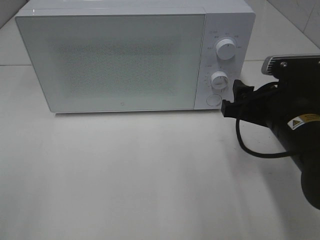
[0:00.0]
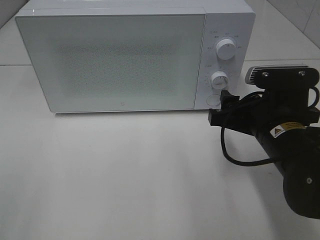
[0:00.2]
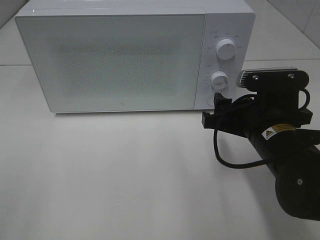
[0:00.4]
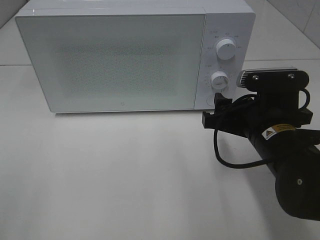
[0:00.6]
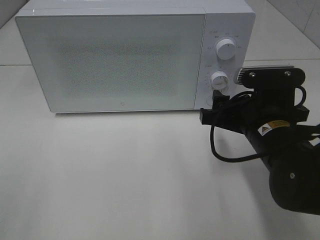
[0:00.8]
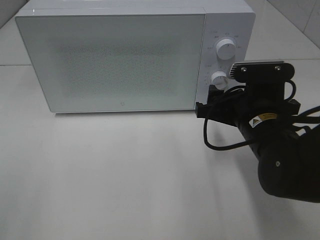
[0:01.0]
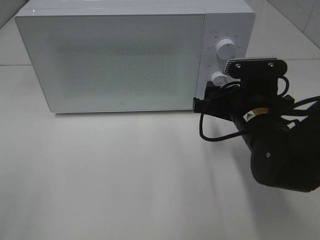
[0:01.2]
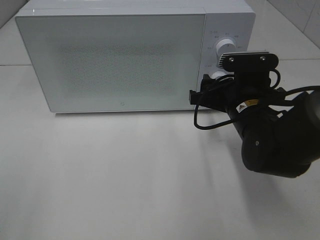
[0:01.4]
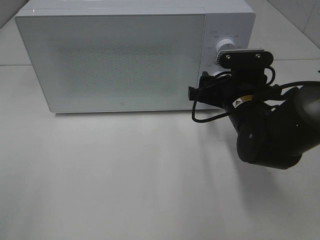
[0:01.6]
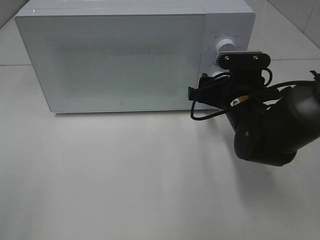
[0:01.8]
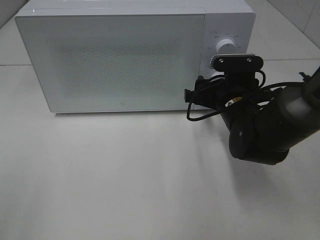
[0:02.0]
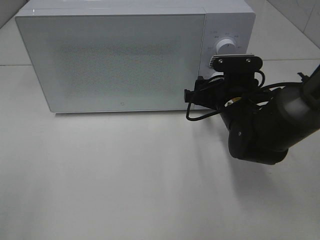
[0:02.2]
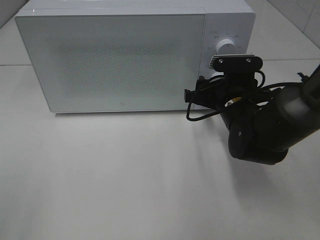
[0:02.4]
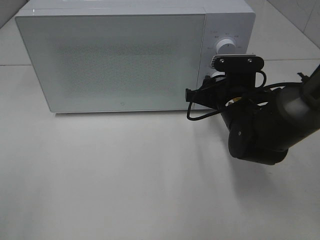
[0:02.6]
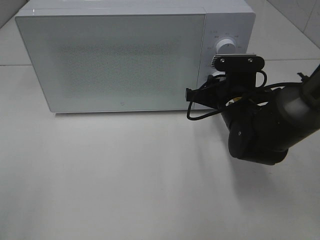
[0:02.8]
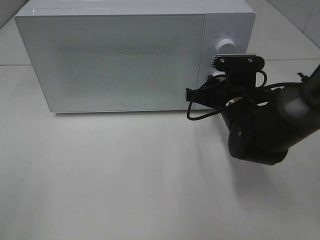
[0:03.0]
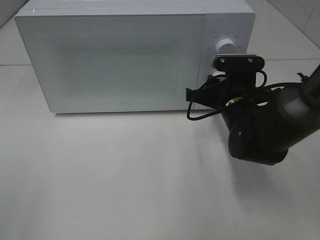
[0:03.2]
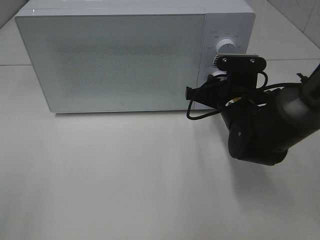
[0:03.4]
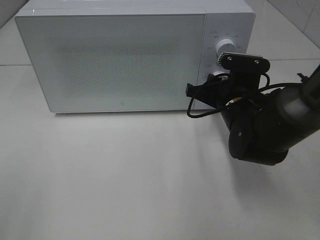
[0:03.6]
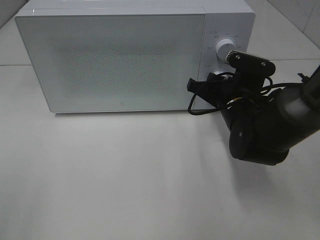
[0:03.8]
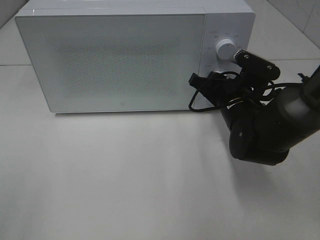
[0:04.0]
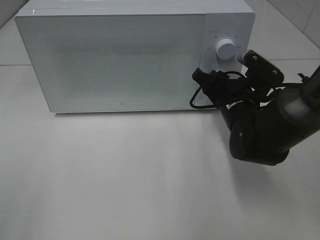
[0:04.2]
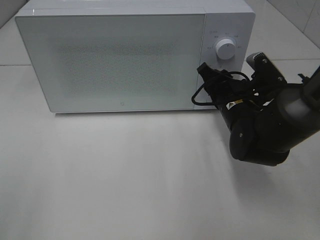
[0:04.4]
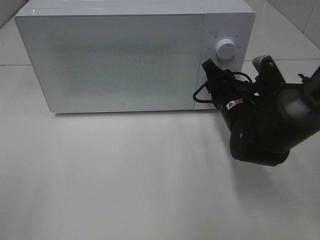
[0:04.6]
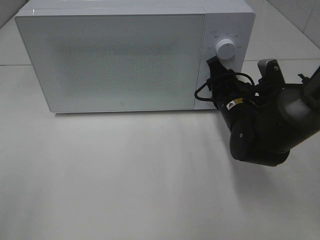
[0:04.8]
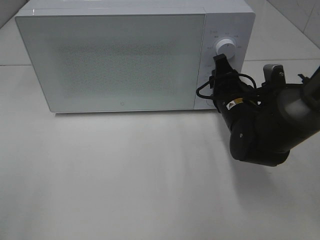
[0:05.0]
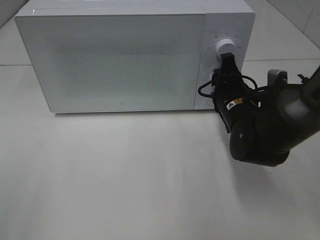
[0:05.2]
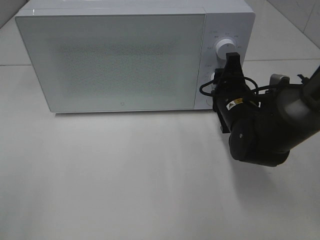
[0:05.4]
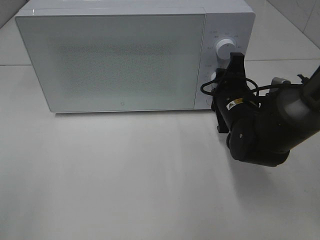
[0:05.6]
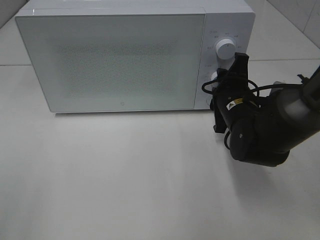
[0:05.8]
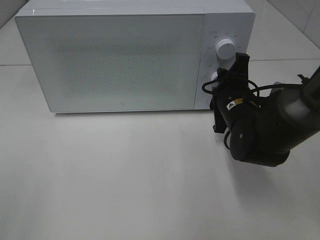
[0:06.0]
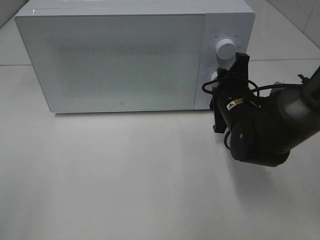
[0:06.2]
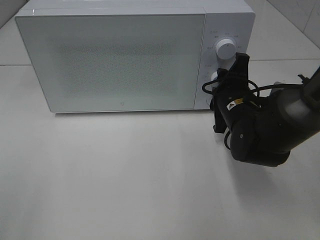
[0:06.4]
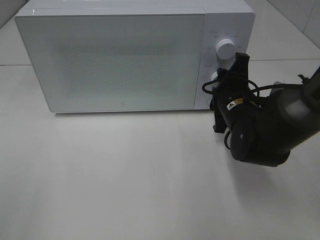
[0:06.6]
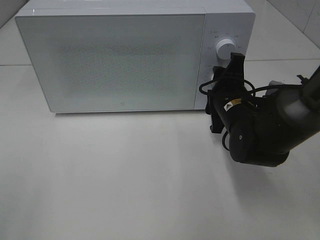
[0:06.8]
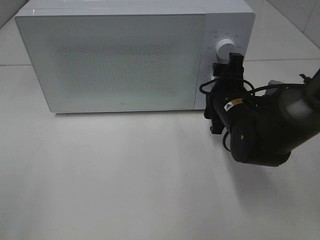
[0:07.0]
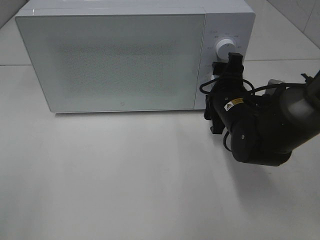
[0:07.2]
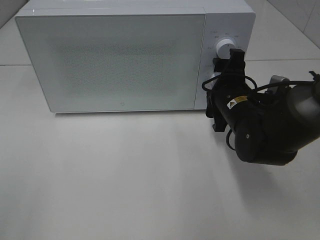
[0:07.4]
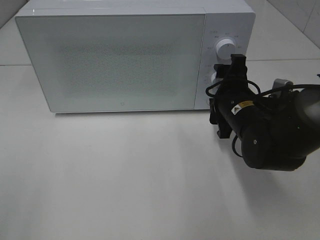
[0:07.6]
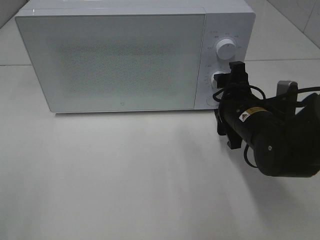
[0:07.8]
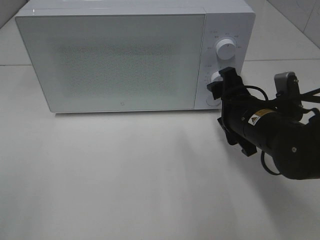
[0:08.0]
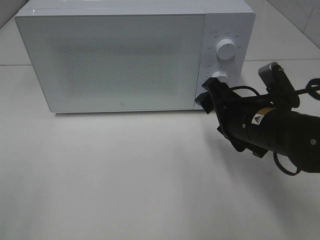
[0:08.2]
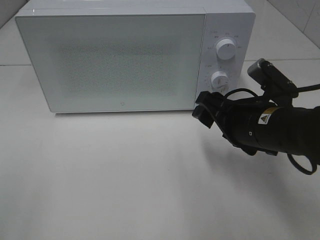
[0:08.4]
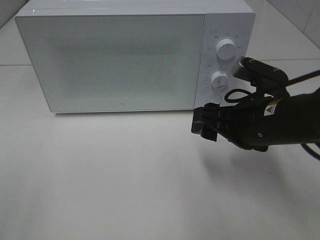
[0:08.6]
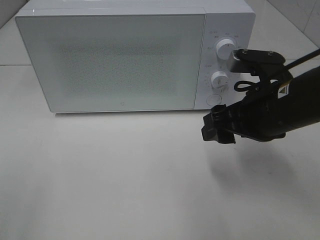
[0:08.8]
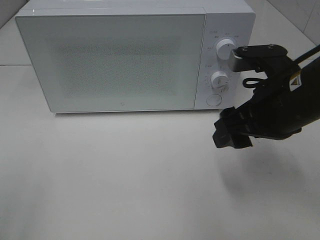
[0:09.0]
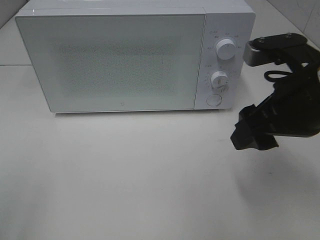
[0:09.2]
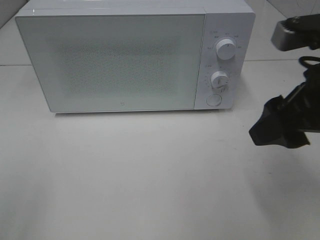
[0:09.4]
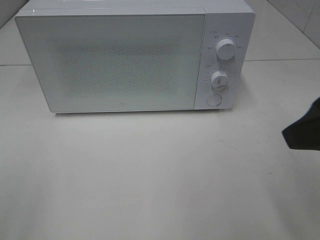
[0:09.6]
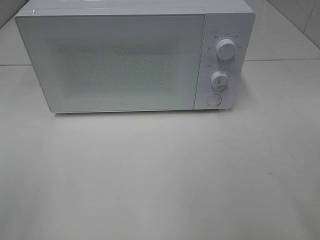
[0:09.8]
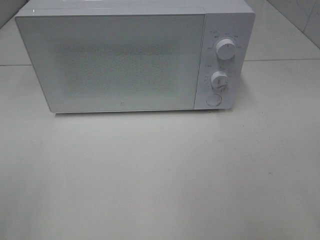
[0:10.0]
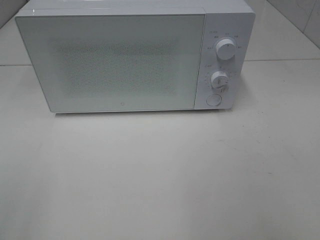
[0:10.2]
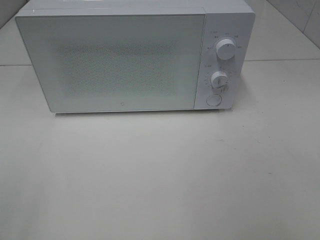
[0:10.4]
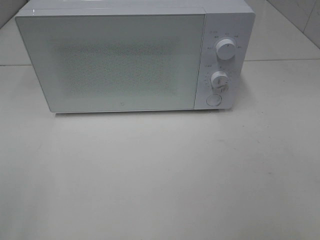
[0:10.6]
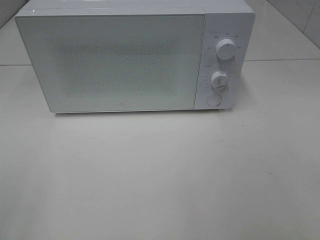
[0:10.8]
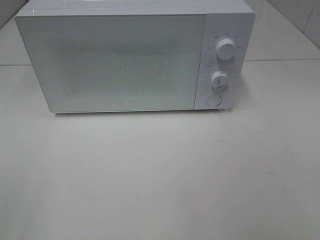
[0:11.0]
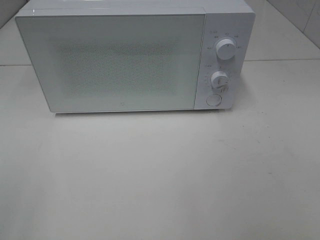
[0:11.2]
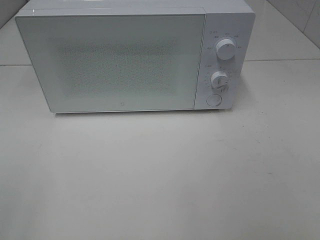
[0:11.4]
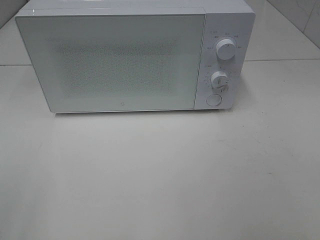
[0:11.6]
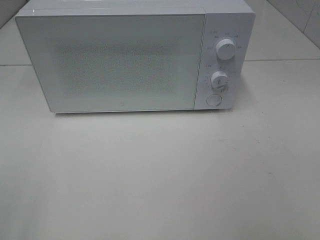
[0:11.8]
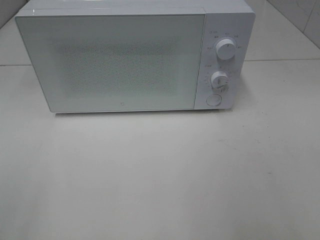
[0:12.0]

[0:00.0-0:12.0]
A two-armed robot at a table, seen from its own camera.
Task of the whole recording: Heat Sandwich.
Step, 0:00.0 to 0:07.4: Right hand: twist timer button.
0:00.0 to 0:01.6: The right gripper goes about 10 cm forward.
0:01.6 to 0:03.0: The right gripper closes its fingers.
0:06.0 to 0:07.6: The right gripper opens its fingers.
0:07.6 to 0:09.0: The right gripper heads upward and backward, covering some 10 cm.
0:09.0 to 0:10.4: The right gripper heads backward, to the right and upward, covering some 25 cm.

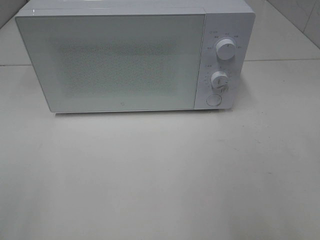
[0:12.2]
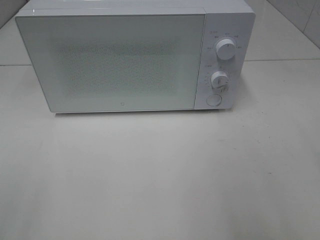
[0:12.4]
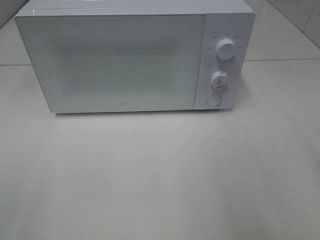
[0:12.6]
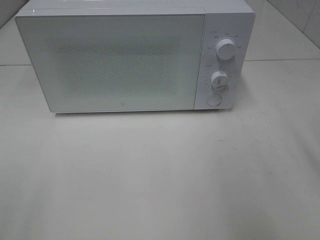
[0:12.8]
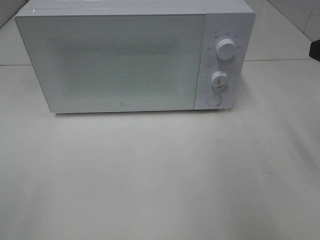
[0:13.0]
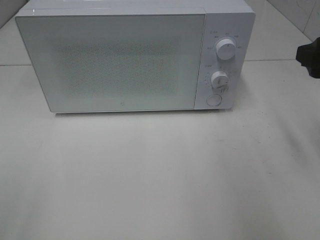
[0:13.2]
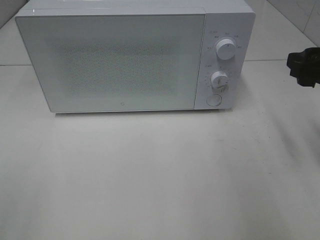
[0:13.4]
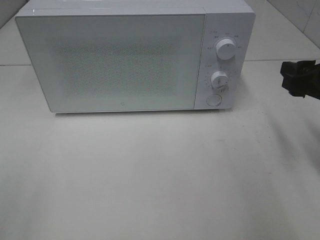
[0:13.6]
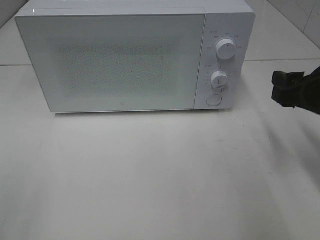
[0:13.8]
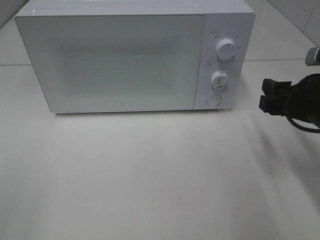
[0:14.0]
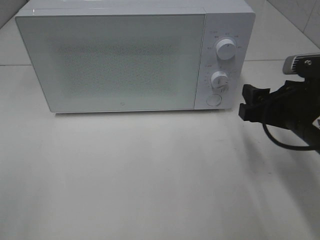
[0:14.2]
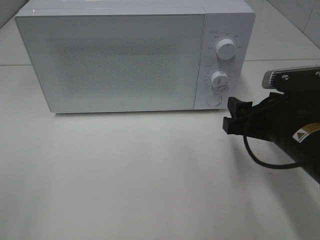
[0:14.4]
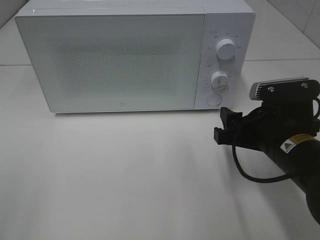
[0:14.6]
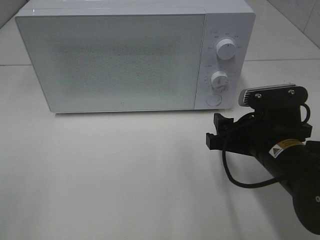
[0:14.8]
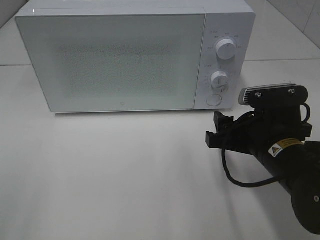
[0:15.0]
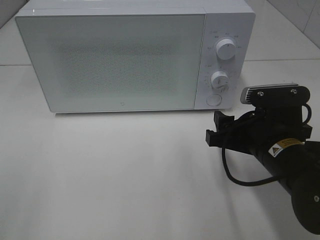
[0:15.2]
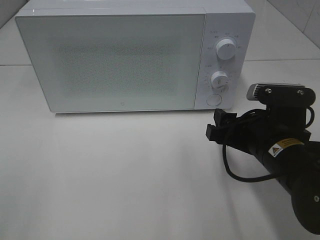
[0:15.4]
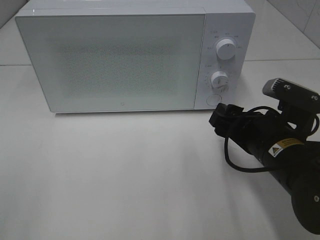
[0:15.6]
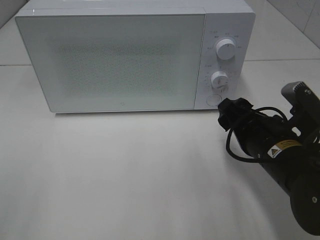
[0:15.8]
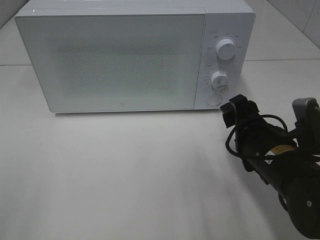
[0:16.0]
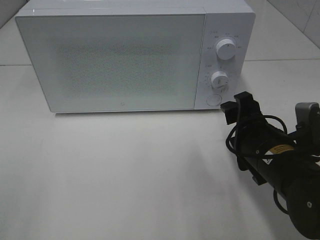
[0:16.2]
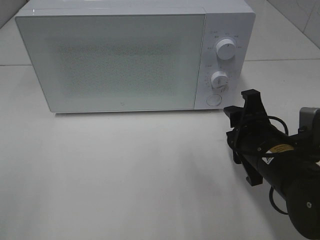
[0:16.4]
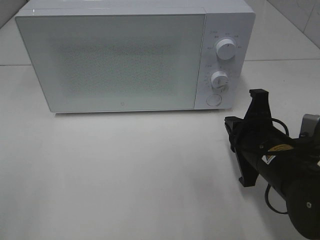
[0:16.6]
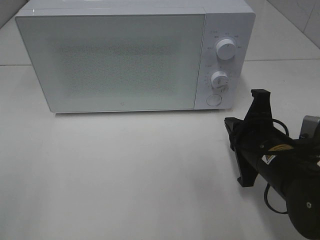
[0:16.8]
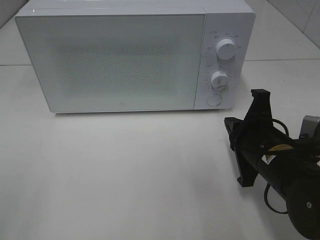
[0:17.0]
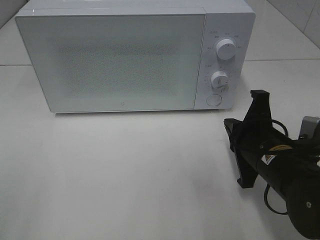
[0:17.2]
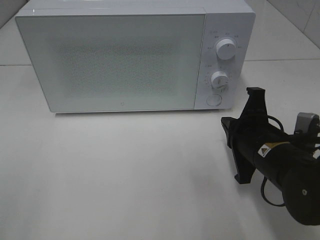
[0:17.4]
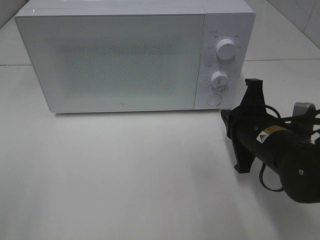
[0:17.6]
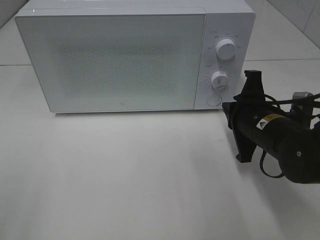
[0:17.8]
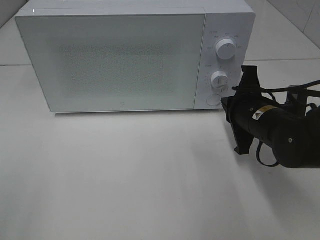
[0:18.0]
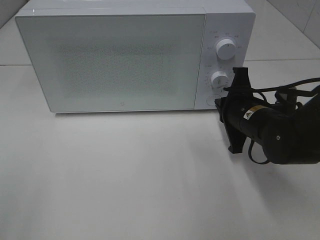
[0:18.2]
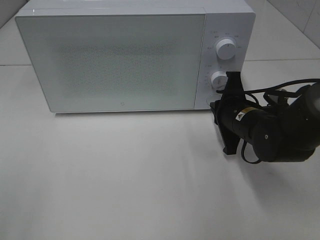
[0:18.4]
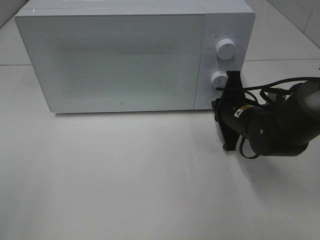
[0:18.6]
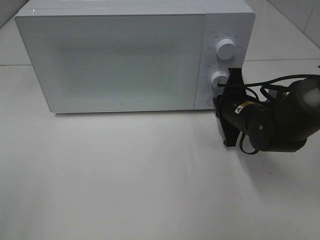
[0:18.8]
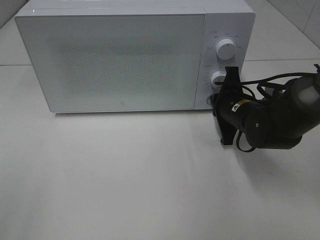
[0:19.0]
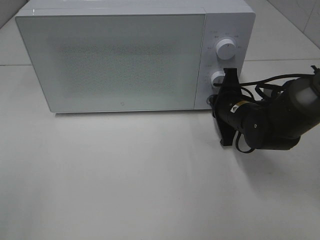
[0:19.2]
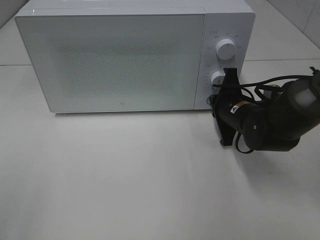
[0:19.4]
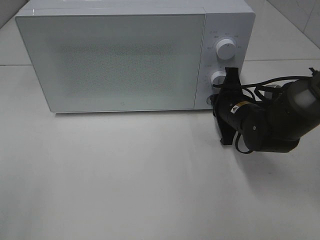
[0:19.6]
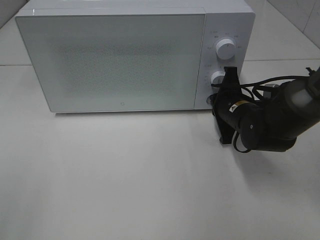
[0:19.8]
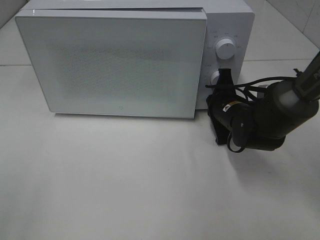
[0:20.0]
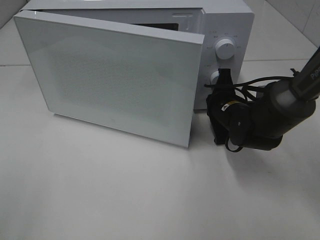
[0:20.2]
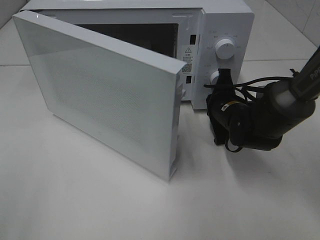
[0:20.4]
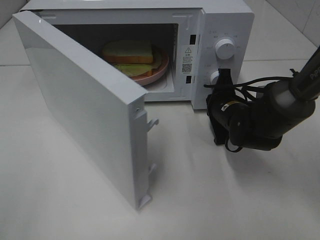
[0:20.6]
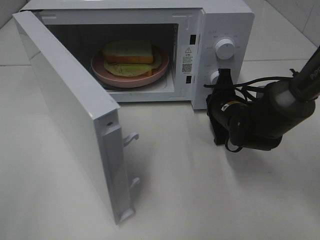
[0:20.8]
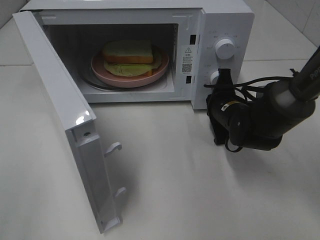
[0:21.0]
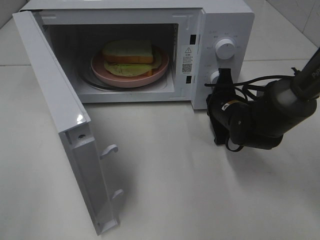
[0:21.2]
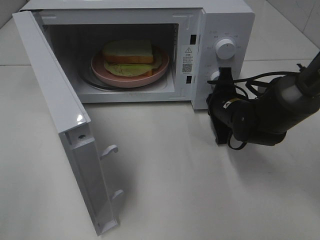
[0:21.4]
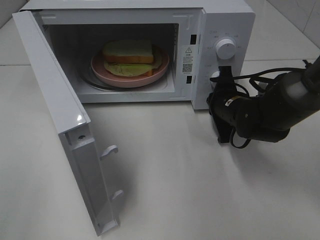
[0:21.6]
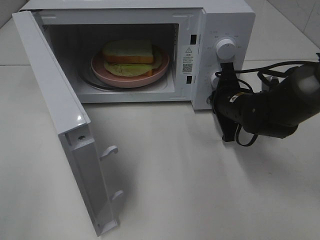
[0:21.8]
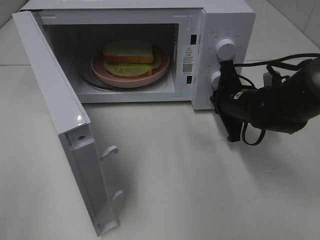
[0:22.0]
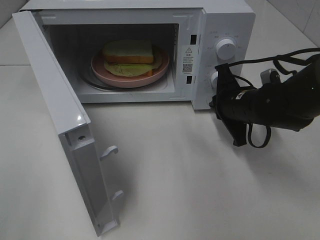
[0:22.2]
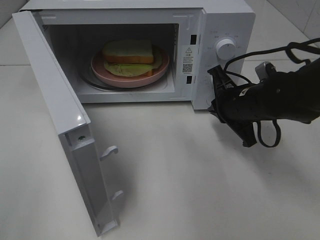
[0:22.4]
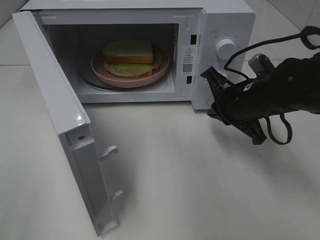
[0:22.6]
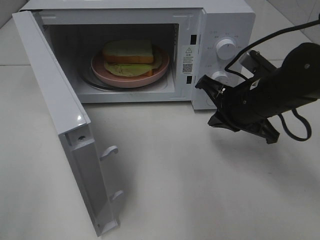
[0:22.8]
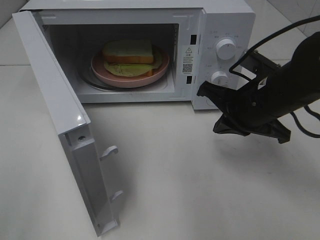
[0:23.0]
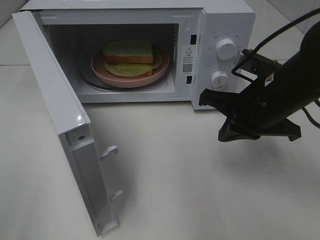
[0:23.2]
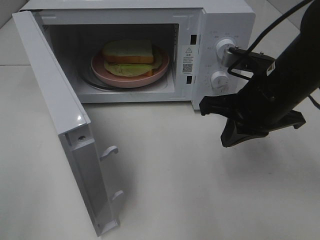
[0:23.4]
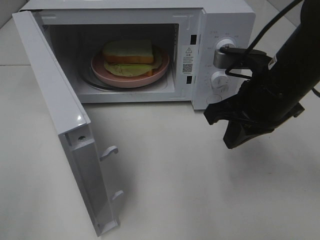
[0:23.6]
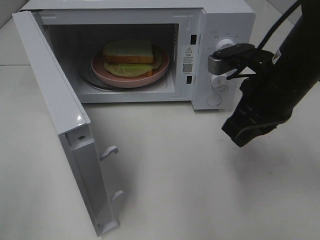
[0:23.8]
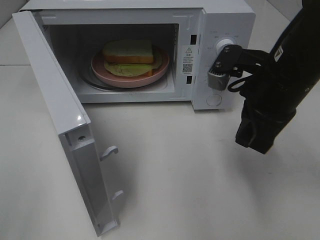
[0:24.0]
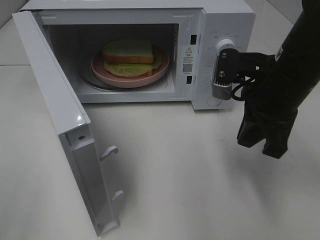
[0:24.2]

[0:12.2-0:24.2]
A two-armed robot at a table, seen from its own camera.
Task of the whole recording: Heat Sandwich.
Step, 0:12.2 to 0:22.0: Right hand: press the switch.
0:12.2 to 0:13.8: The right gripper travels forward and downward by approximately 20 cm.
0:13.8 to 0:15.2: The right gripper is displaced to the left and downward by about 10 cm.
0:15.2 to 0:16.6: The right gripper closes.
0:16.6 to 0:18.2: The right gripper shifts some 10 cm forward.
0:18.2 to 0:19.8: The right gripper shifts by roughly 5 cm.
0:21.2 to 0:22.6: The right gripper is displaced upward and backward by approximately 10 cm.
0:22.6 to 0:24.2: The right gripper travels upward by approximately 10 cm.
